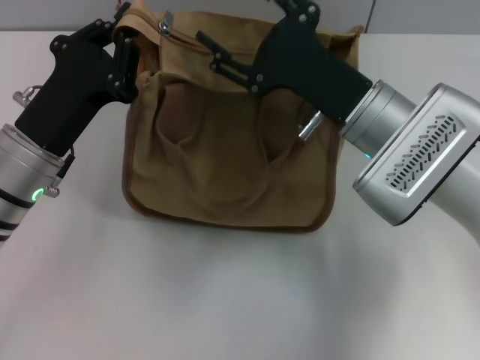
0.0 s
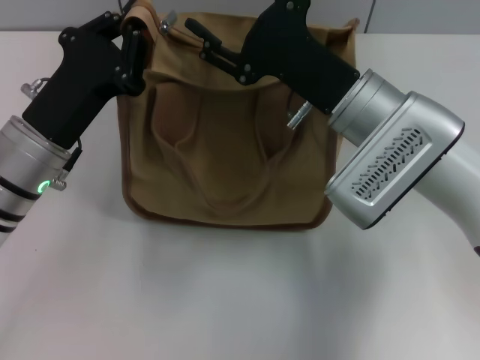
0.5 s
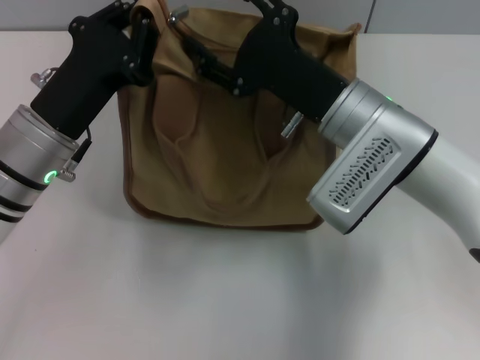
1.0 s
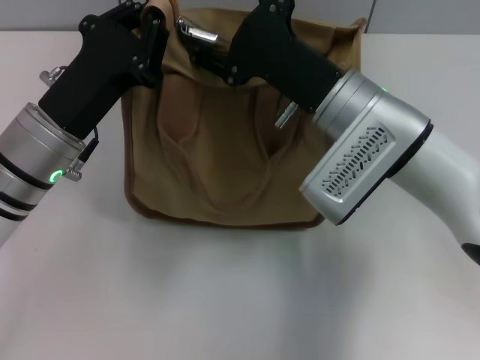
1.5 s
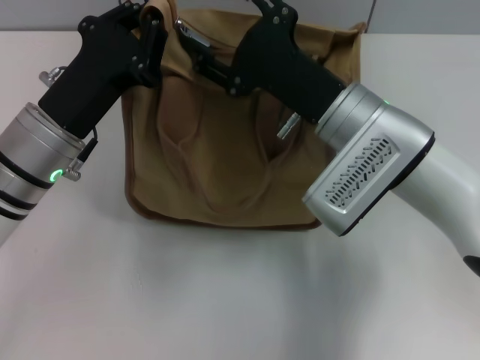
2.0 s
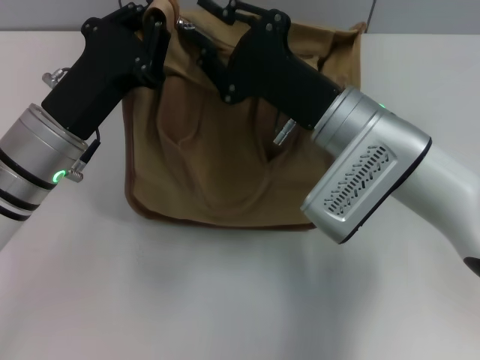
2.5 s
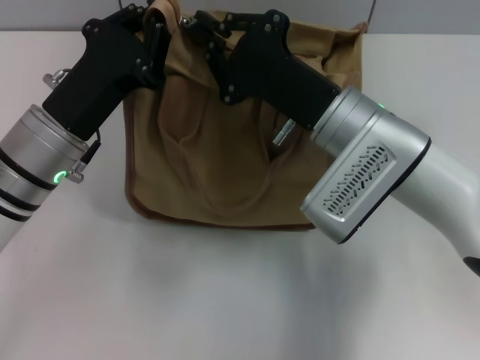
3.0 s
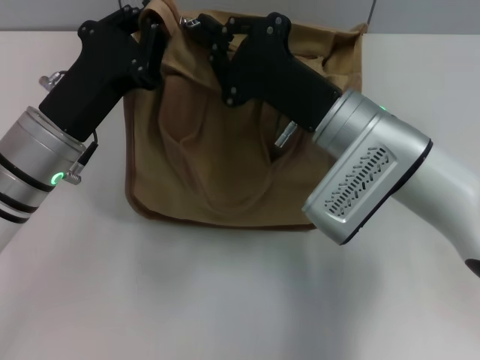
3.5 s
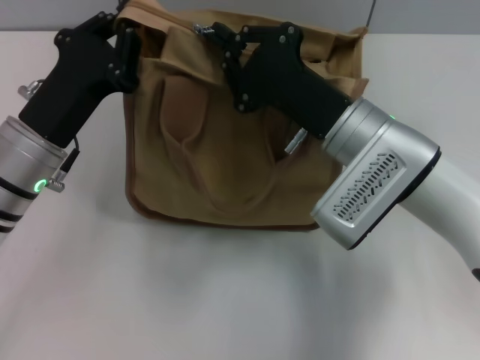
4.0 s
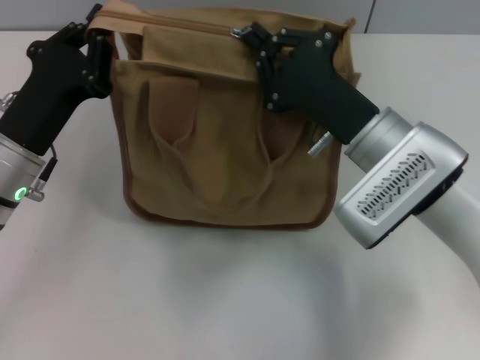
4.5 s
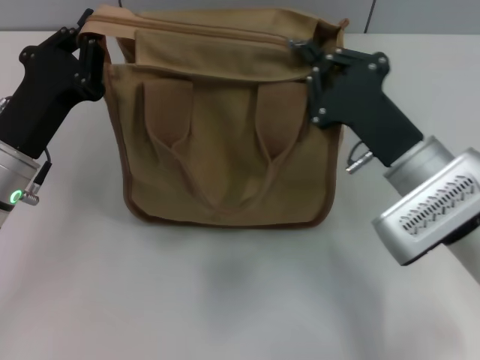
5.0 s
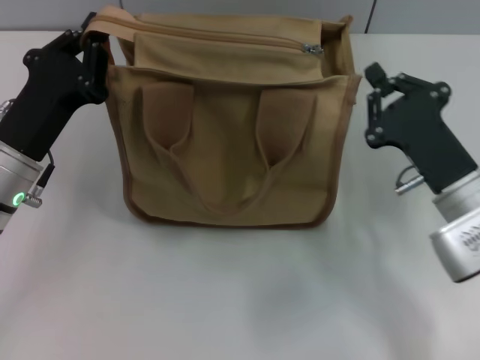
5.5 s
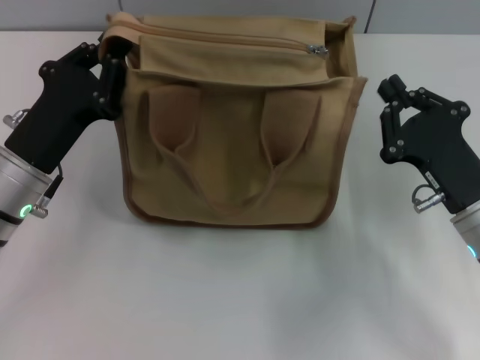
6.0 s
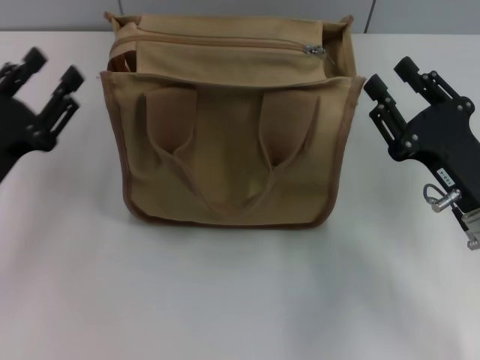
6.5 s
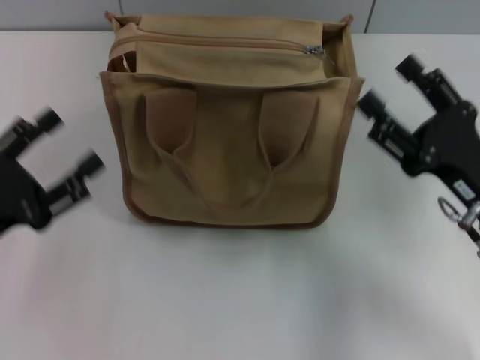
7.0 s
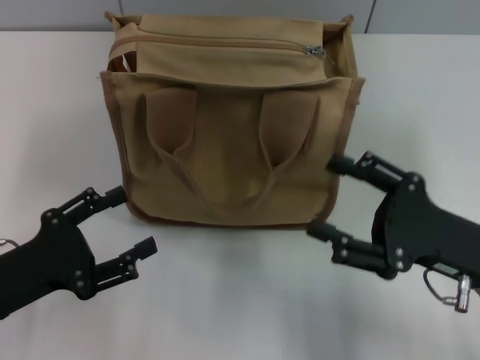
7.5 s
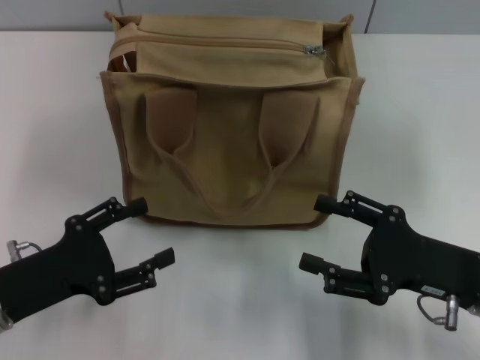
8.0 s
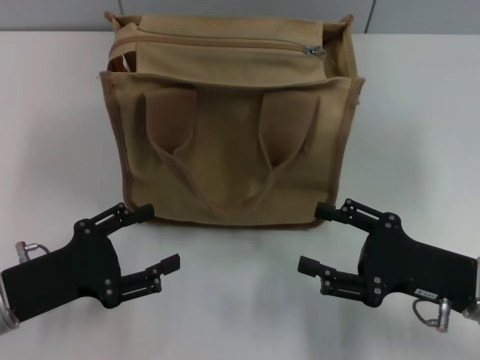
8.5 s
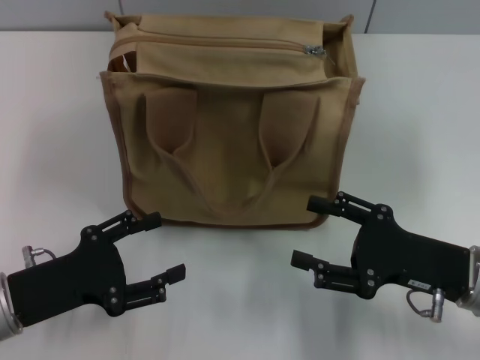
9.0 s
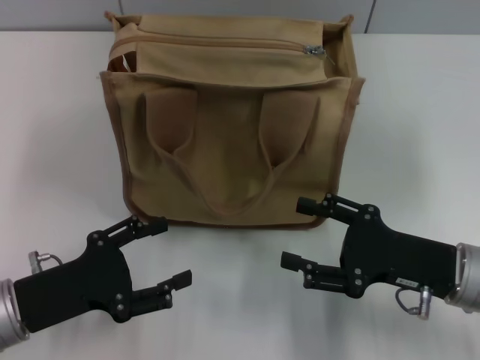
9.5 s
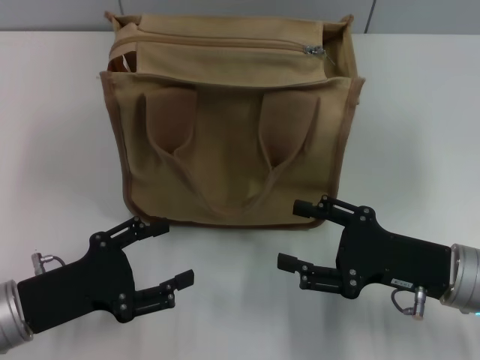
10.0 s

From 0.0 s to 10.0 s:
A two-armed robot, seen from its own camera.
Step, from 0.0 s to 5.0 s: Pull up the zipper with your right hand.
Step, from 5.5 s to 6.5 s: Grab the zipper with your left hand.
From 2.0 s to 4.0 s: The right gripper closes.
From 4.0 s to 6.0 s: The right gripper shifts some 15 cm to the right, backward and downward.
From 6.0 s to 8.0 s: The right gripper opens up. The left gripper moves backward, some 10 cm, and opens up.
From 8.0 s to 10.0 s: The grippers stay close to where they were, moving slightly.

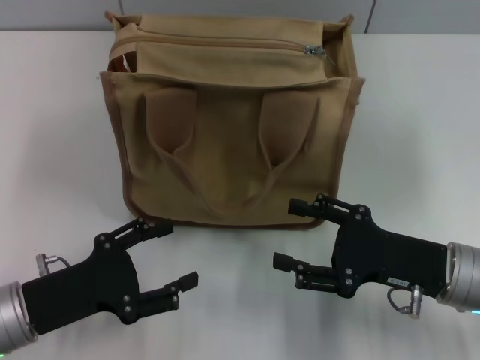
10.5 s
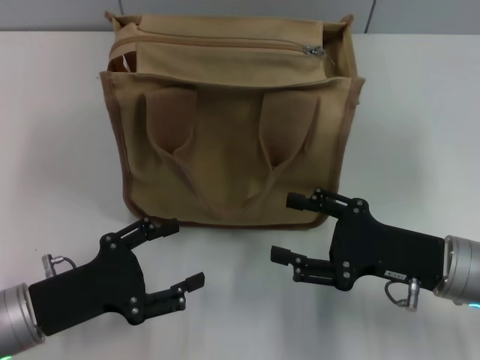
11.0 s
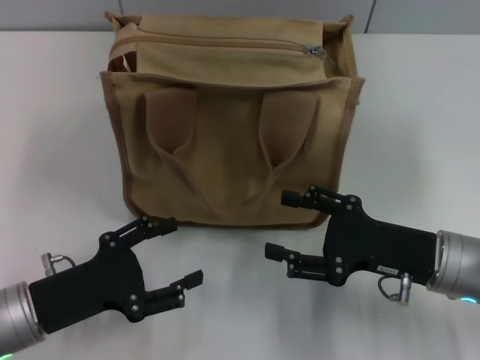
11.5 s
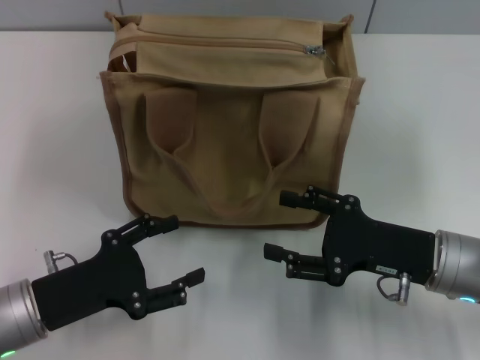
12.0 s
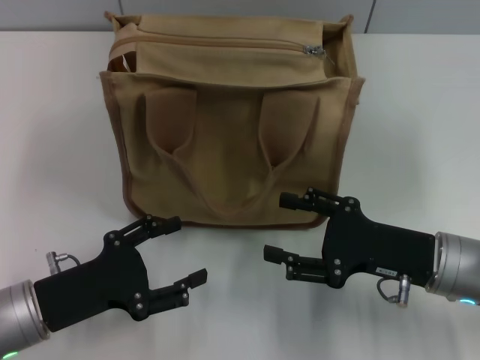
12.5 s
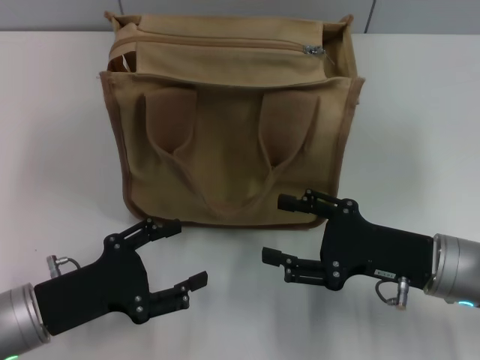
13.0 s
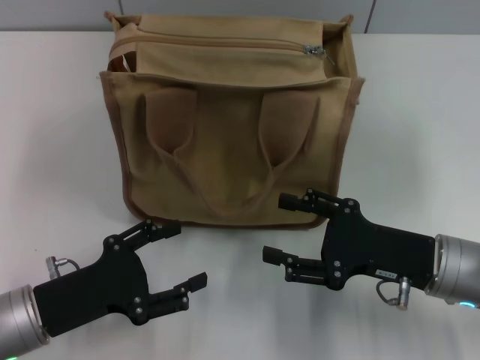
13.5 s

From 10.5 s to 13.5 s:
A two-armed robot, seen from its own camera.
From 10.5 s to 13.5 s: The two grippers keep their place.
